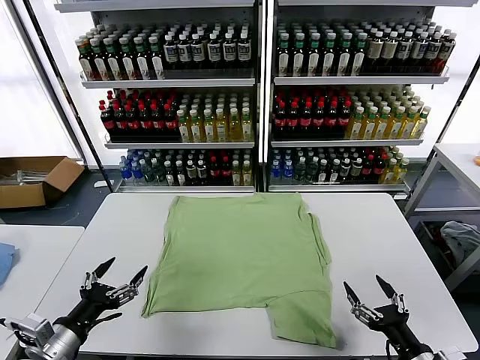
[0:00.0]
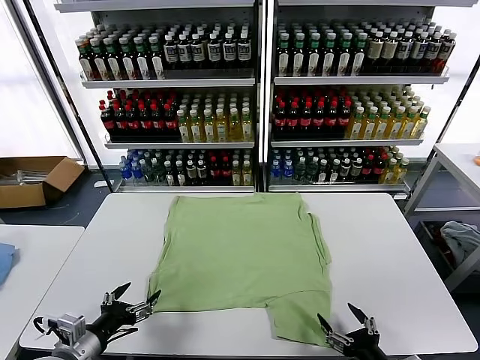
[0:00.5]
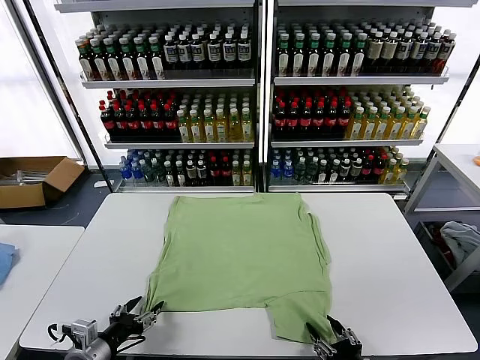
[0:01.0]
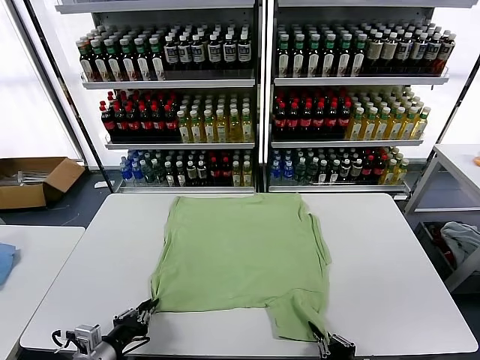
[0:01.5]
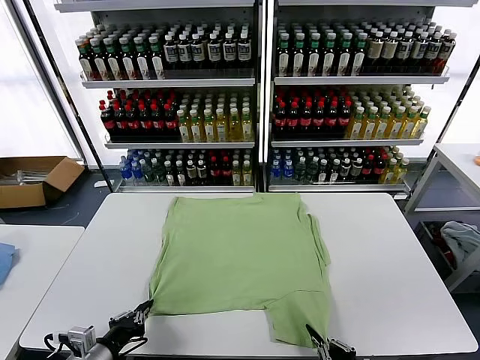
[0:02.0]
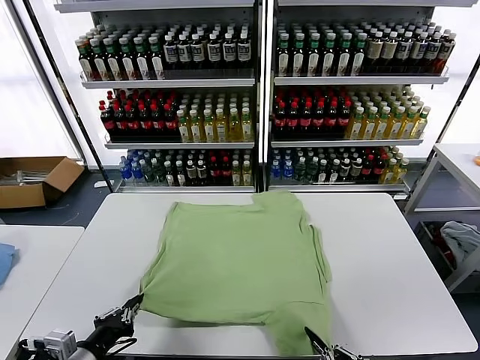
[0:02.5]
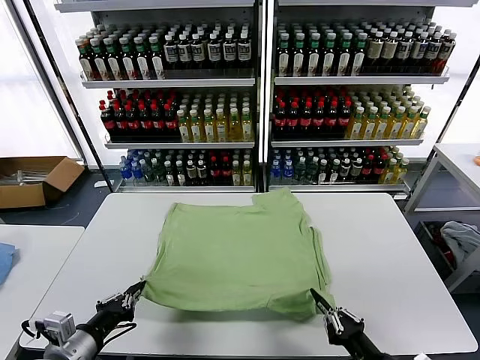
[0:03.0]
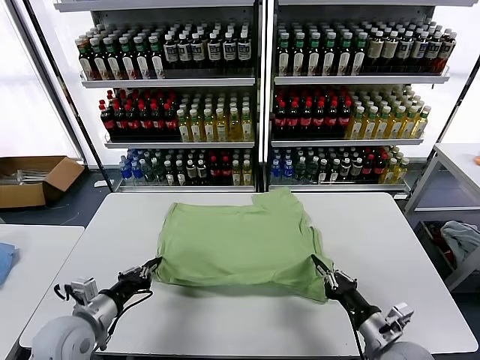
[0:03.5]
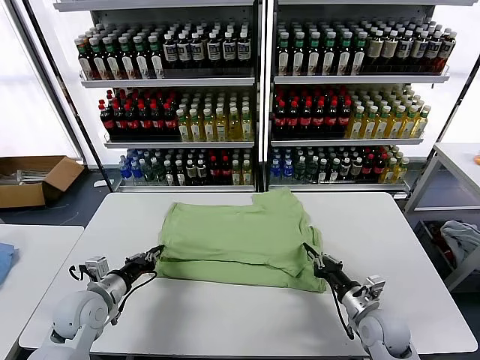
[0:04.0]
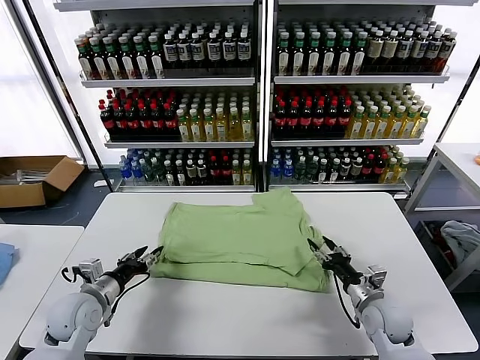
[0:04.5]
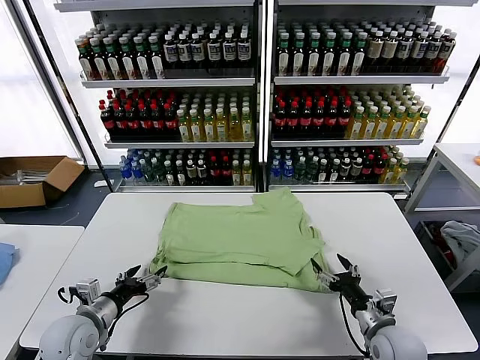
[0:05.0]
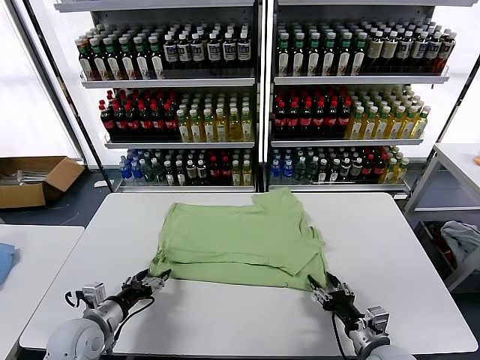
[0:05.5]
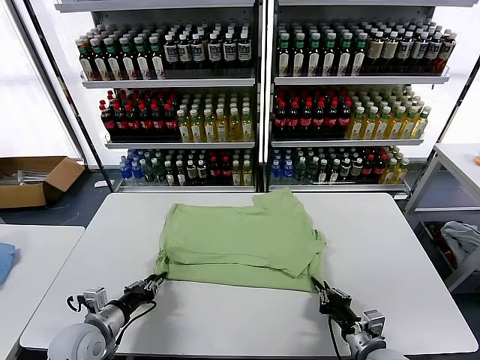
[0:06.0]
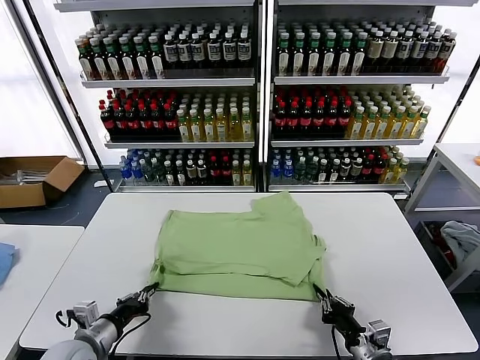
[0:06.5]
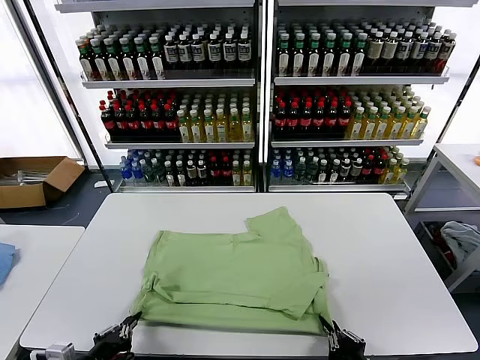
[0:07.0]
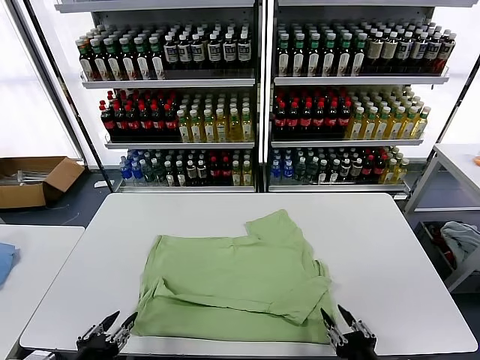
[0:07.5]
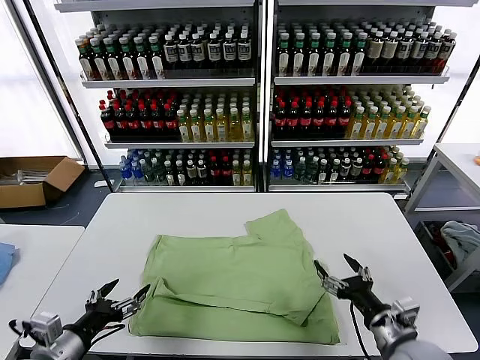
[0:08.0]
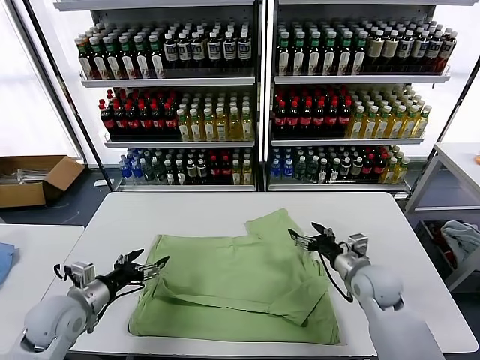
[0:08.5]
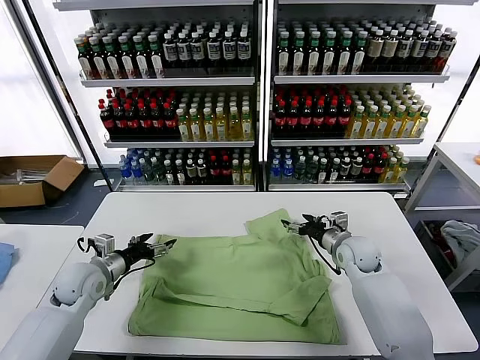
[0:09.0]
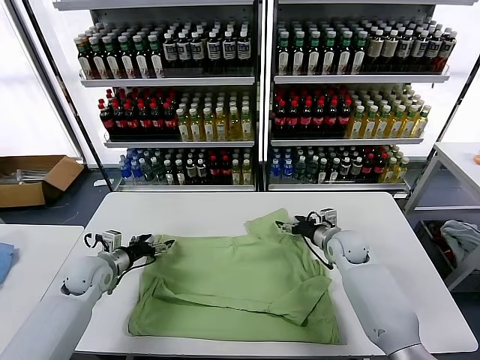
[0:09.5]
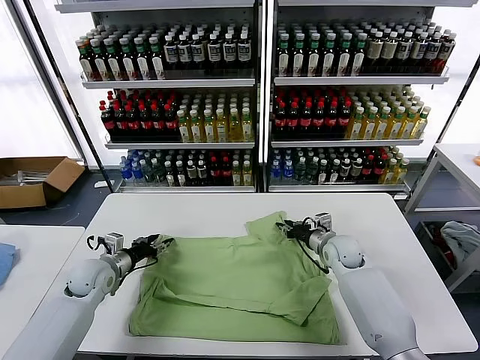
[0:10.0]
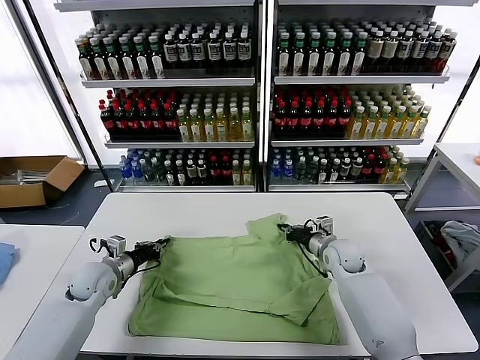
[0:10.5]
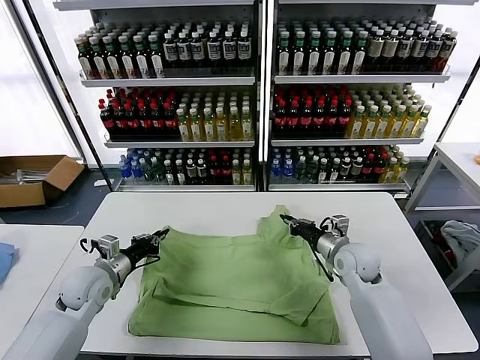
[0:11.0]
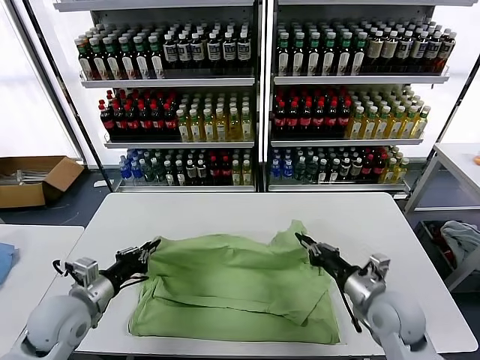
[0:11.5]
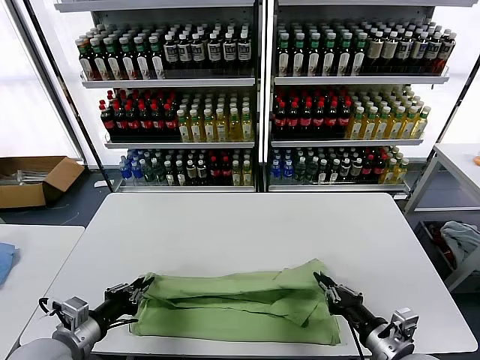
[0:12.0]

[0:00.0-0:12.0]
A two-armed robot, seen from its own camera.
Task of the whole recording: fold and organize the clothes.
Step, 0:00.0 to 0:01.5: use both grippers simultaneously to clamp the lower edge of the clothing fabric.
Step, 0:02.0 to 0:04.5: use both grippers to drag the lower edge of the fabric forward and fold it over the upper edge.
Step, 0:05.0 to 0:07.5: Drag the clothes downward with both gripper.
Step, 0:08.0 to 0:10.5: use both grippers simultaneously to clamp the upper edge of the clothing fabric.
0:02.0 to 0:04.0: Both grippers travel together forward, some 20 cm.
0:04.0 to 0:06.0: The grippers both shift backward by roughly 10 cm. The right gripper opens, then closes again. The left gripper opens and closes again.
0:06.0 to 0:08.0: The right gripper travels upward by roughly 10 cm, goes backward and returns, about 10 cm each way, and opens its fingers; the left gripper is displaced upward and backward by approximately 10 cm, and opens.
0:08.0 to 0:10.0: Both grippers move forward, about 25 cm. The right gripper closes. The left gripper closes its fingers.
0:10.0 to 0:12.0: The grippers both shift backward by approximately 25 cm. The left gripper closes up.

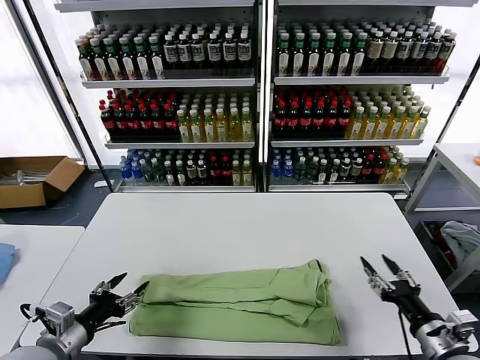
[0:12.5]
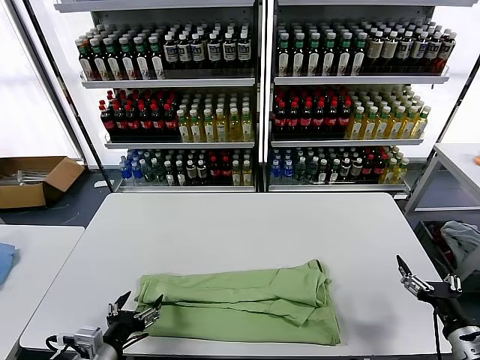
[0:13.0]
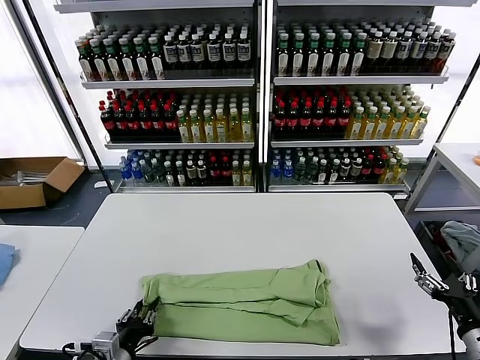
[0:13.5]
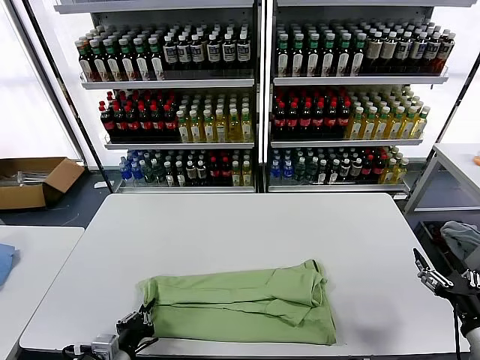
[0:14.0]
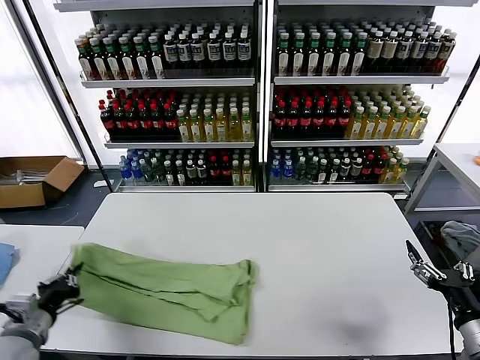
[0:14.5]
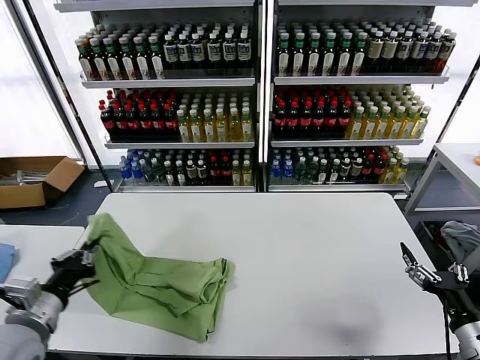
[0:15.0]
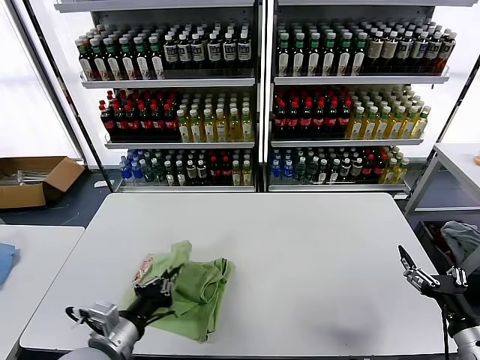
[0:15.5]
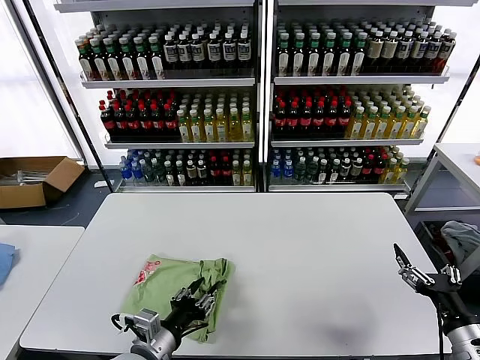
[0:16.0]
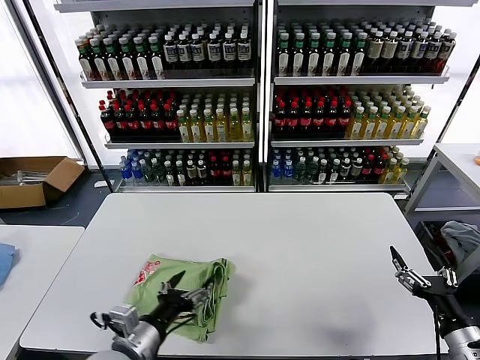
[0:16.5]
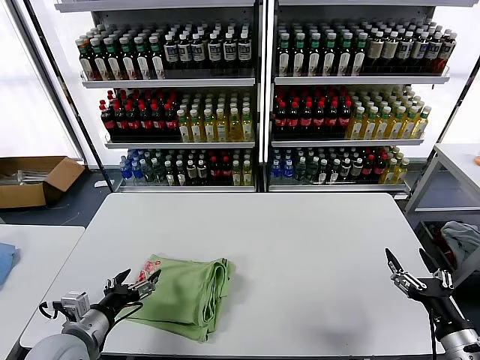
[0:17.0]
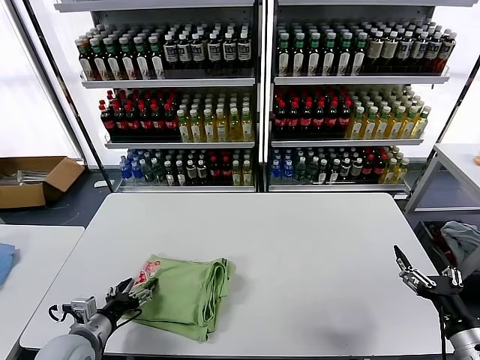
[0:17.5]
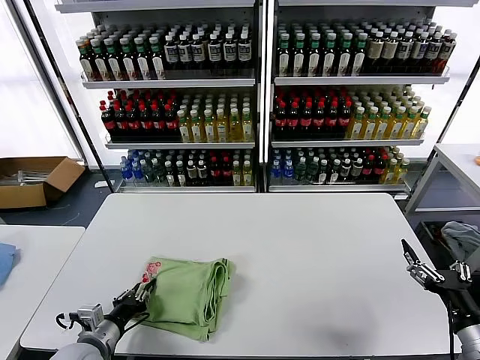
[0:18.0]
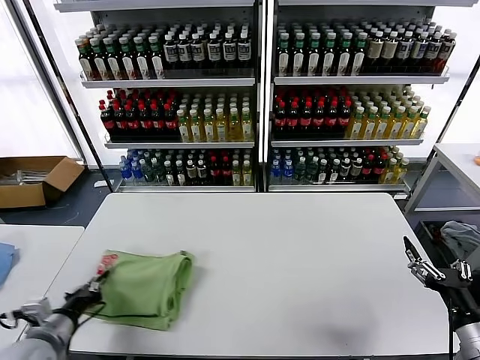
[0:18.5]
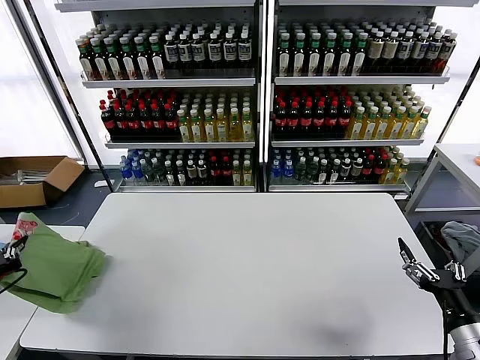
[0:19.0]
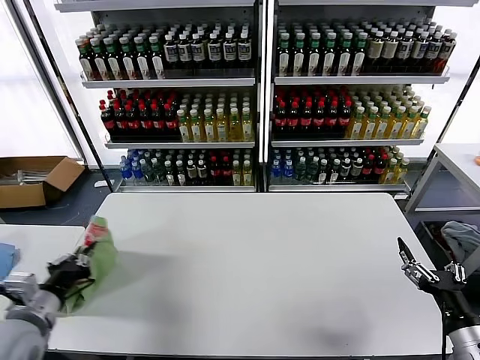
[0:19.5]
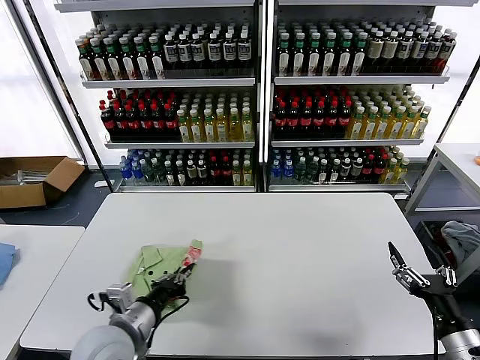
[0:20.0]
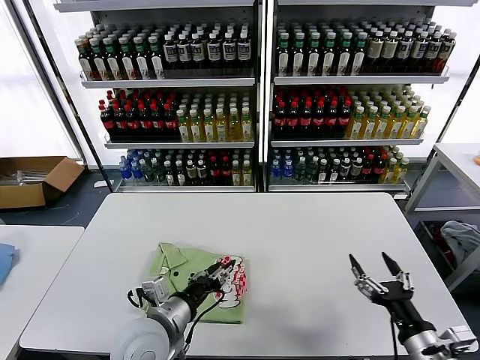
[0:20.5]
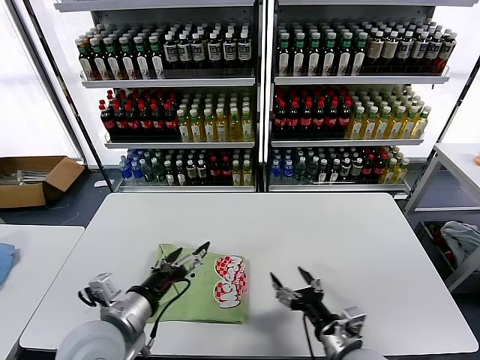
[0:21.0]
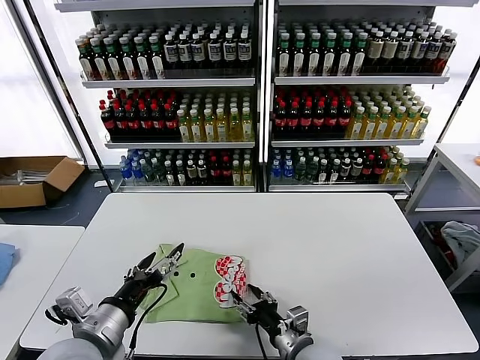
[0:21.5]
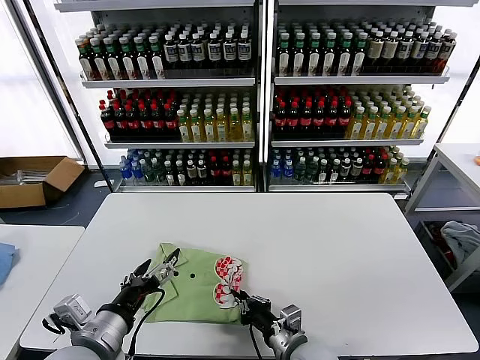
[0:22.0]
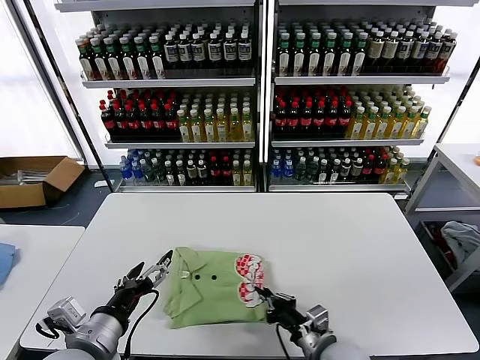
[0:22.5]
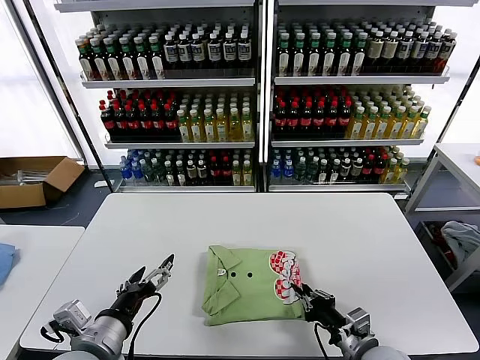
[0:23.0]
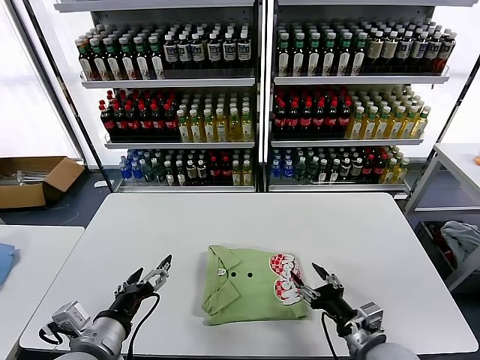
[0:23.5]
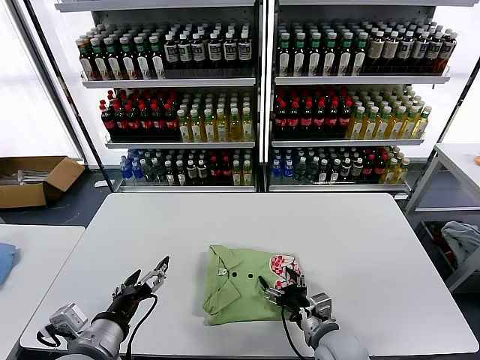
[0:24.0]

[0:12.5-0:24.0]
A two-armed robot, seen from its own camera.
Task of the whole recording: fold and organize the clothes.
Step, 0:12.5 to 0:13.5: use the left gripper to clamp the left edge of the fabric.
Step, 0:14.0 to 0:16.0: use the left gripper to drag the left edge of the fabric to the left and folds it over the right edge.
Step, 0:16.5 to 0:20.5: Flip the folded clothes over with left gripper.
0:12.5 to 0:14.5: The right gripper shifts by some 5 cm. Meanwhile the left gripper moves to the left, some 5 cm, and closes up.
0:14.5 to 0:16.5: The left gripper shifts about 20 cm to the right, and opens up.
0:16.5 to 0:18.5: The left gripper moves to the left, roughly 15 cm, and closes its fingers.
0:18.5 to 0:20.0: The left gripper travels to the right by some 15 cm.
0:20.0 to 0:22.0: The right gripper shifts roughly 25 cm to the left and downward, and closes. The left gripper travels to the right and back again, approximately 5 cm each way, and opens up.
0:22.0 to 0:24.0: The right gripper moves to the right, approximately 5 cm, and opens.

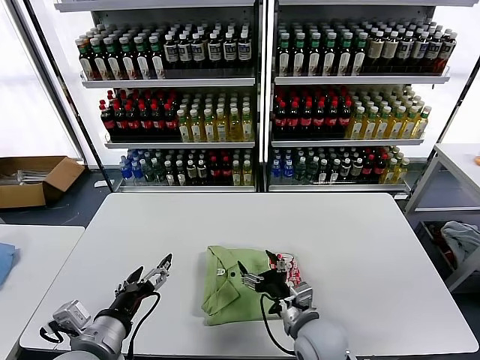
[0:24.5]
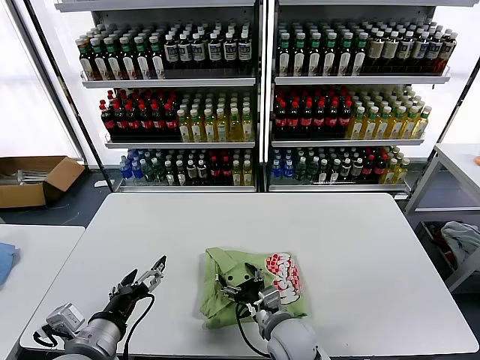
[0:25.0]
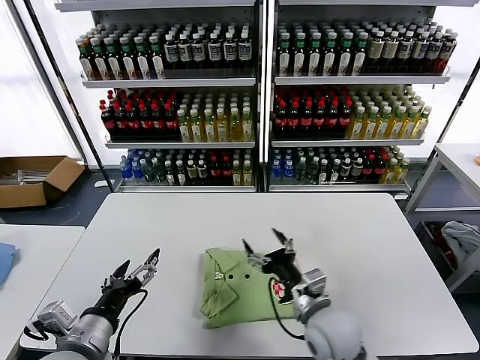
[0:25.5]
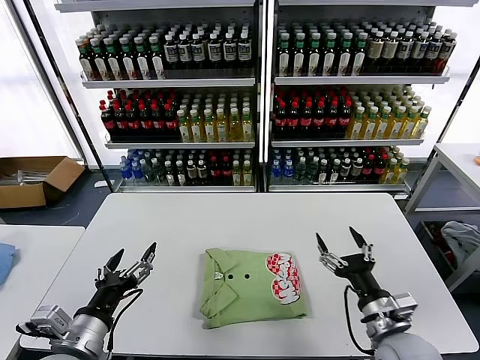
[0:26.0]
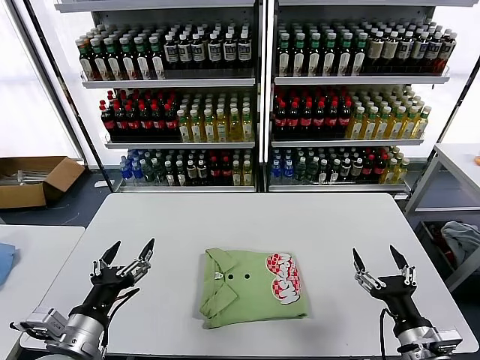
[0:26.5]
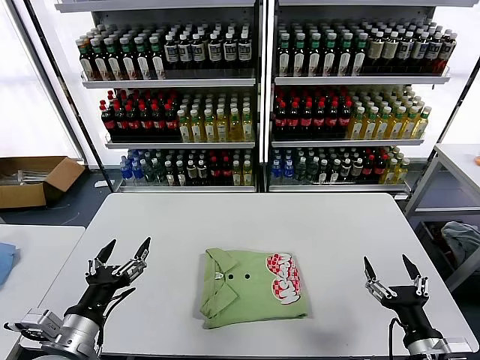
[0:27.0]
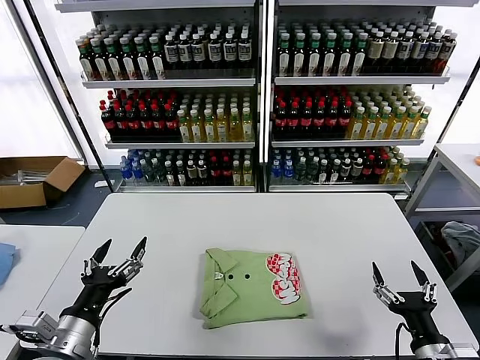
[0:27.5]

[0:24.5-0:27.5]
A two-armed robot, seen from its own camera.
Task of the whole recording: fold and organize the clothes.
0:24.5 to 0:26.0: The right gripper moves to the right and upward, roughly 15 cm.
0:26.0 to 0:27.5: The right gripper is displaced backward and to the right by about 10 cm.
